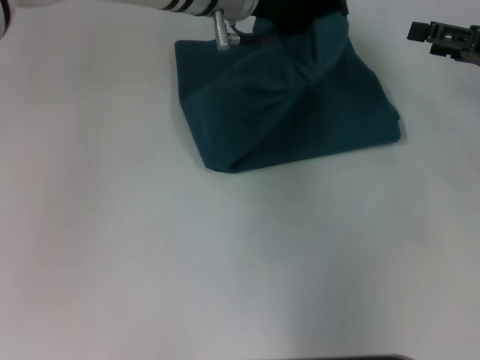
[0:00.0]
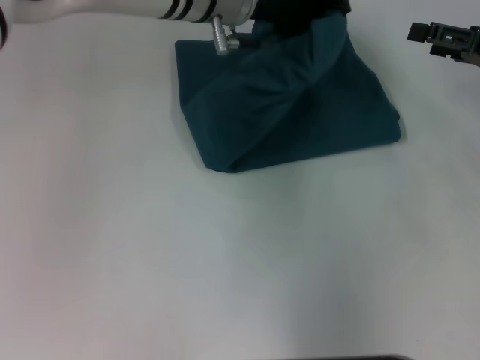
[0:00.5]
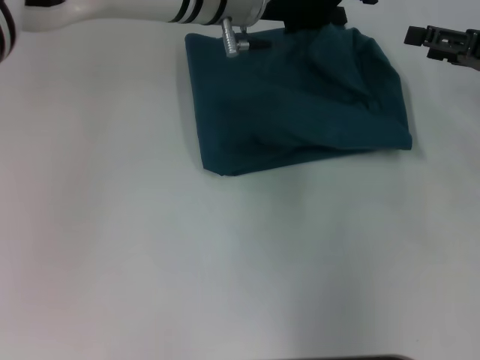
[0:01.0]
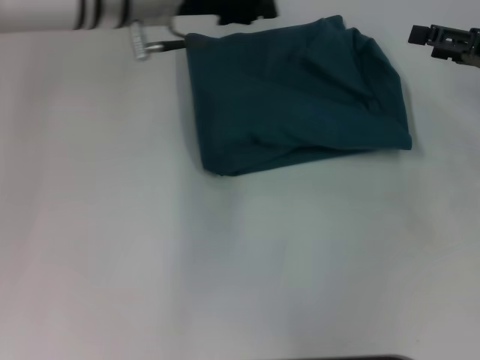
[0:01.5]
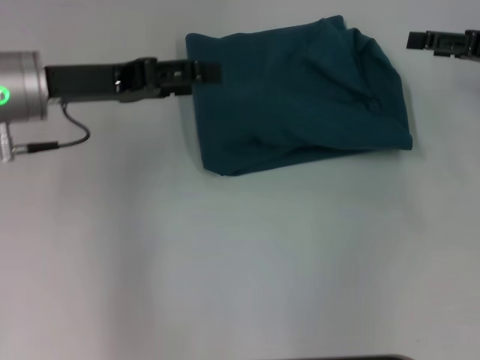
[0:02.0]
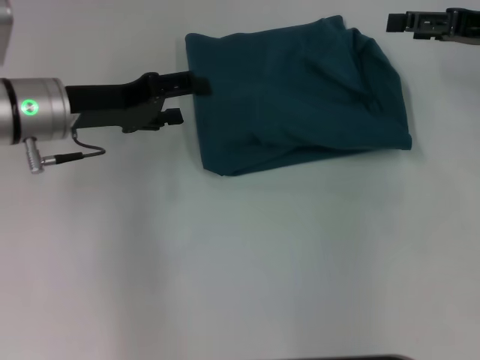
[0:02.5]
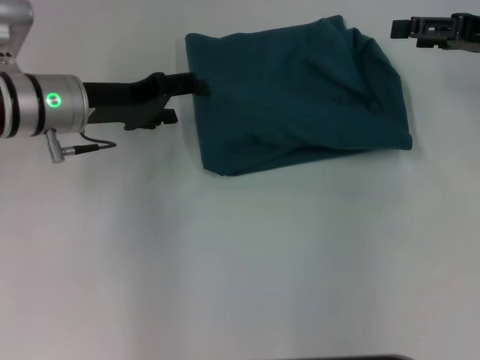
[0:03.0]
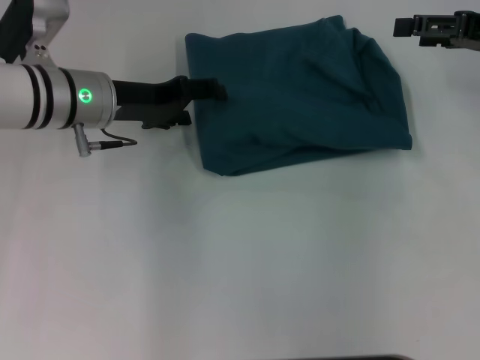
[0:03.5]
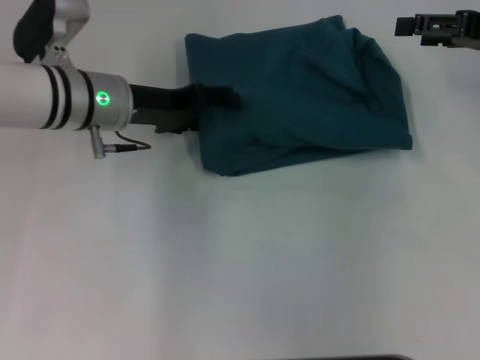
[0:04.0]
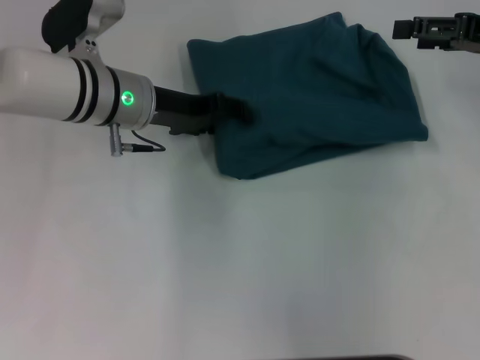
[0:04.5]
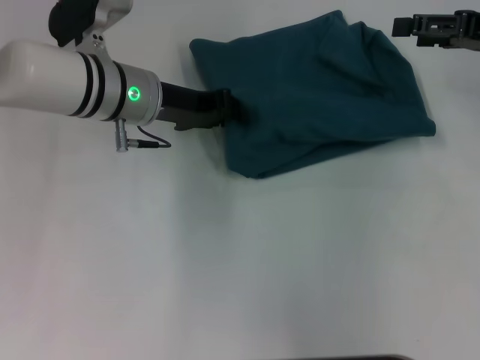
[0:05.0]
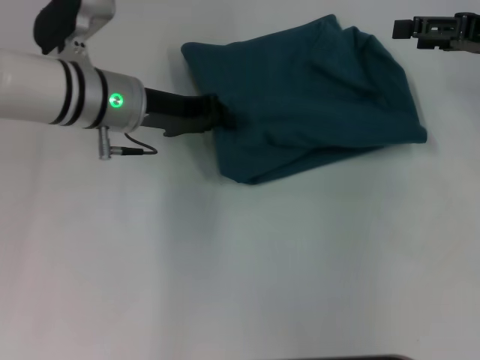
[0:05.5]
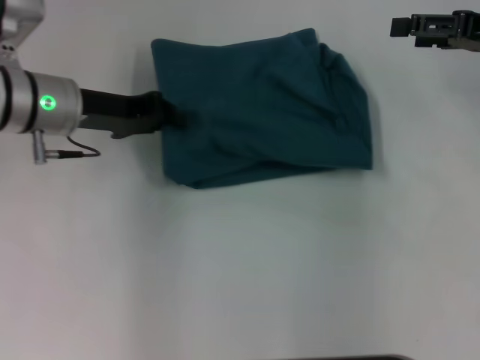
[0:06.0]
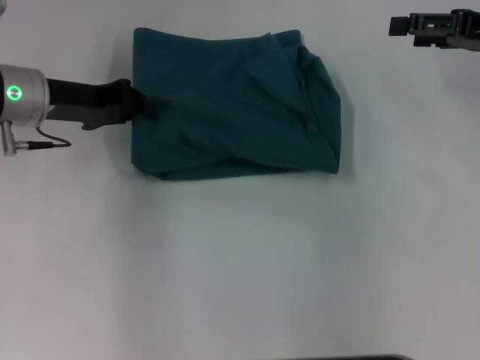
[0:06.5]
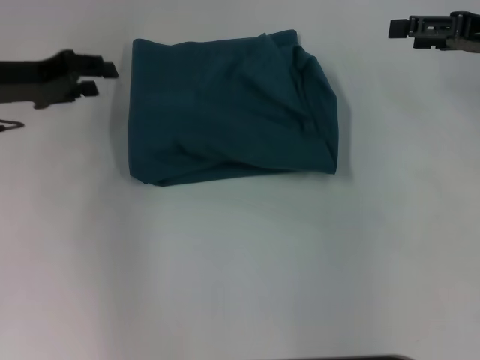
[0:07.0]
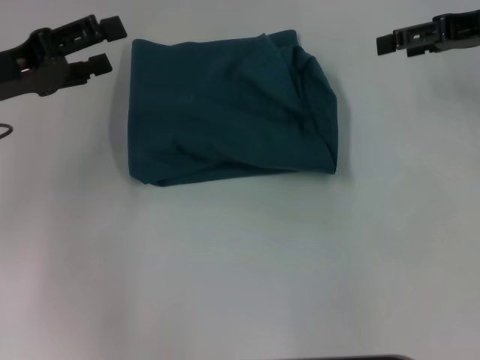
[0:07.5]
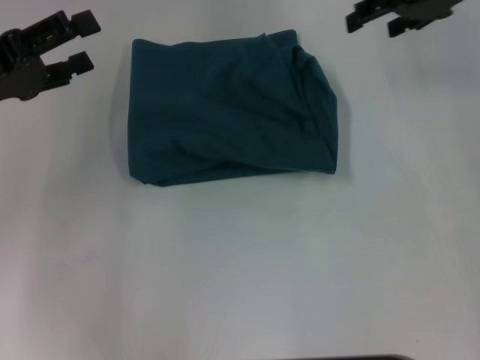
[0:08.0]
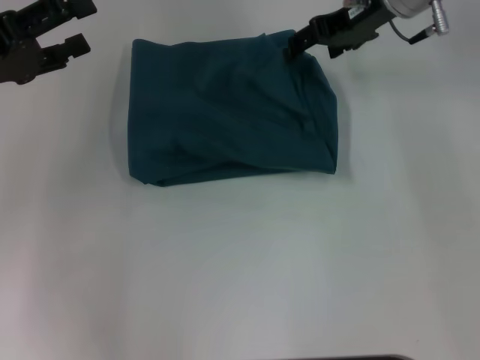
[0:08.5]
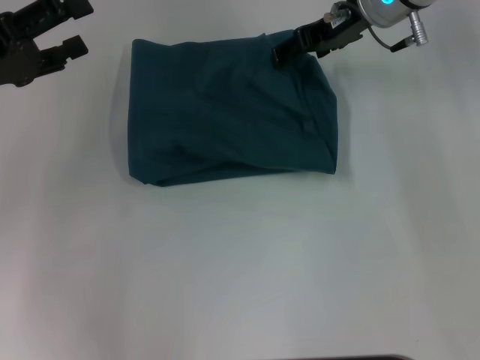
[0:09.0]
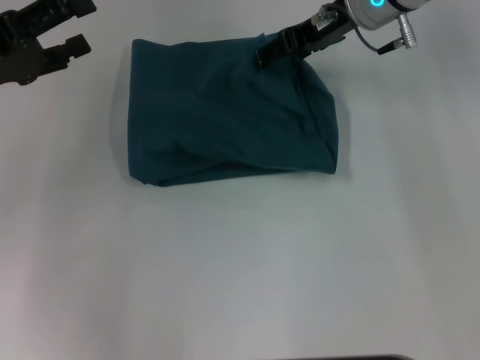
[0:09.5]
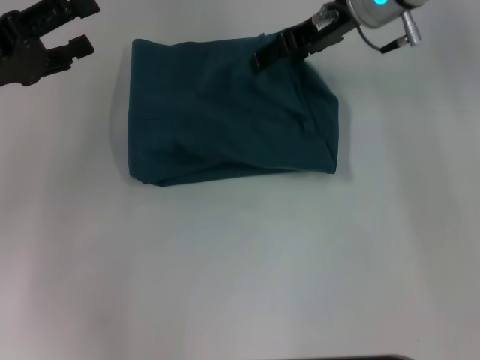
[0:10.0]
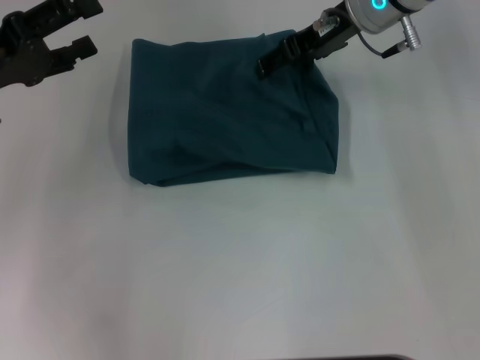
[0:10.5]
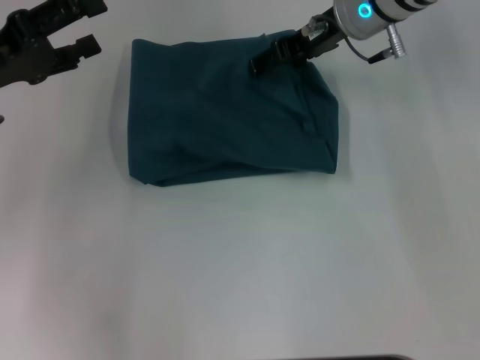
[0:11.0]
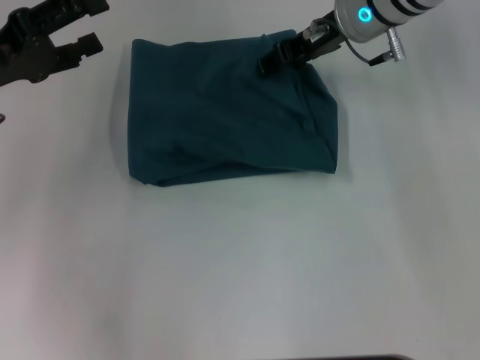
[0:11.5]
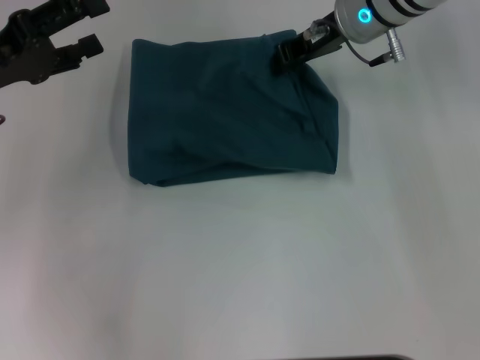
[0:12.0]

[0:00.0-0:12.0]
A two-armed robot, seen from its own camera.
0:00.0 to 0:02.0: The left gripper moves to the left and backward, roughly 20 cm, and opens up.
0:02.0 to 0:04.0: The left gripper heads to the right and downward, covering some 10 cm.
0:04.0 to 0:06.0: The left gripper closes up.
0:06.0 to 0:08.0: The right gripper heads to the left, forward and upward, covering about 10 cm. Meanwhile the left gripper goes about 10 cm to the left and backward, and opens its fingers.
0:08.0 to 0:10.0: The right gripper heads to the left, covering some 10 cm.
0:10.0 to 0:12.0: The right gripper closes.

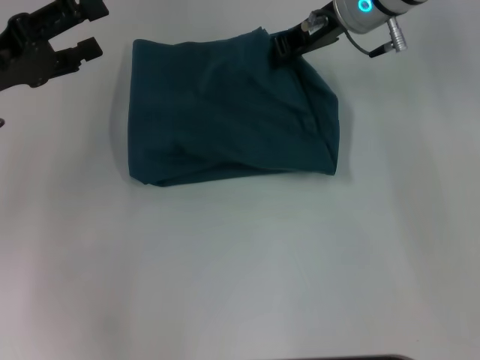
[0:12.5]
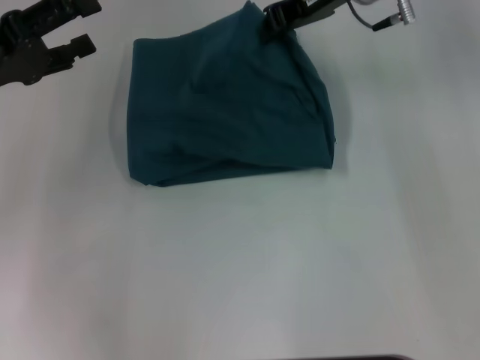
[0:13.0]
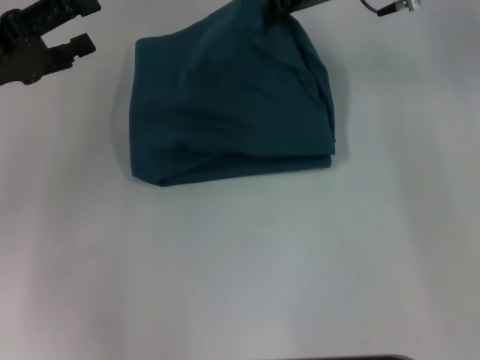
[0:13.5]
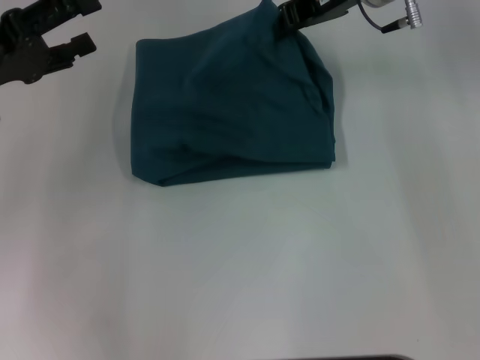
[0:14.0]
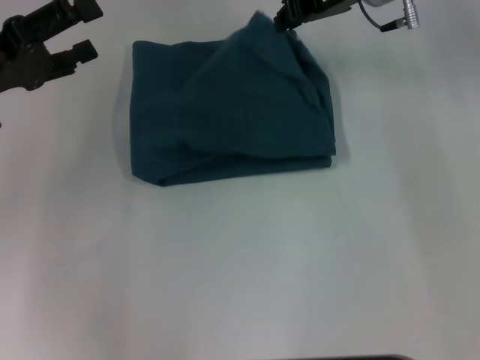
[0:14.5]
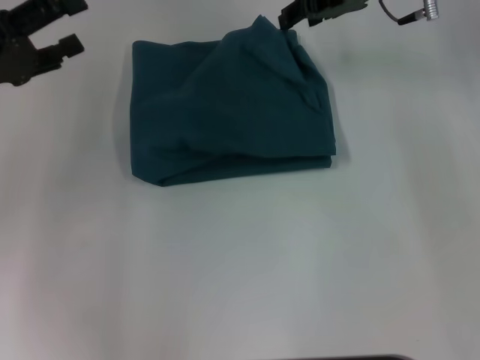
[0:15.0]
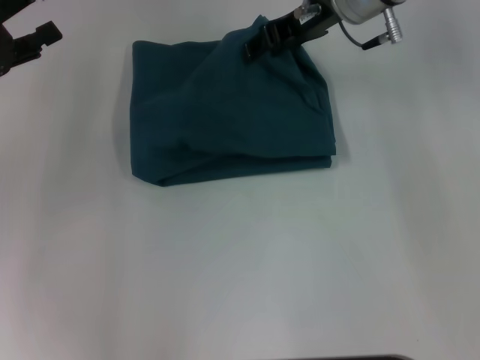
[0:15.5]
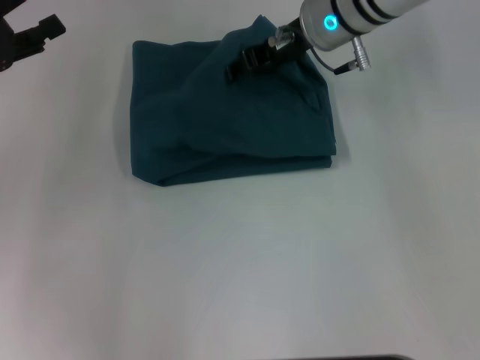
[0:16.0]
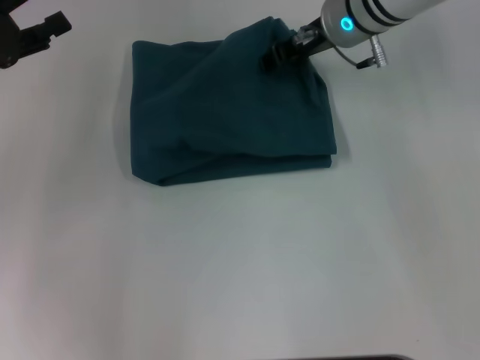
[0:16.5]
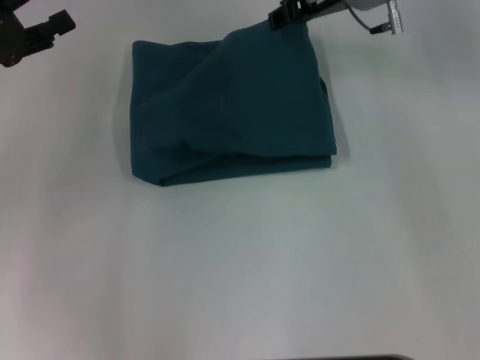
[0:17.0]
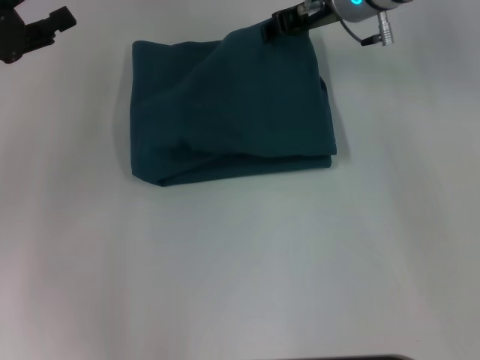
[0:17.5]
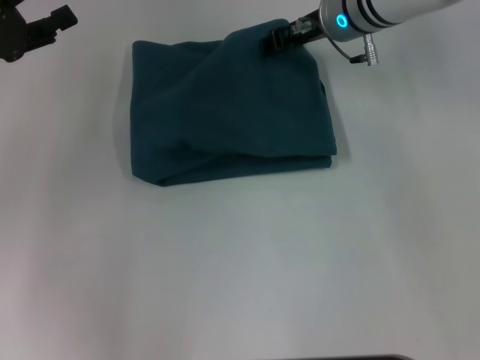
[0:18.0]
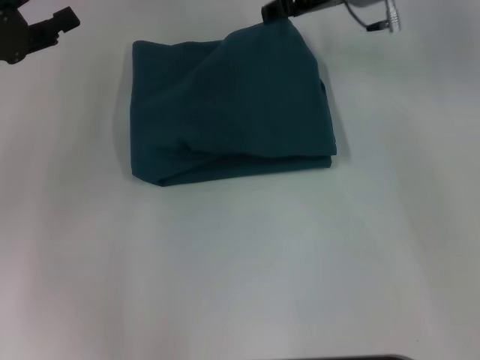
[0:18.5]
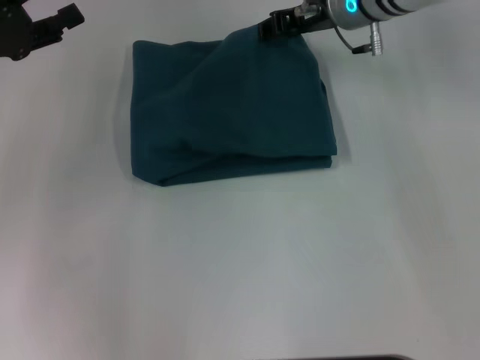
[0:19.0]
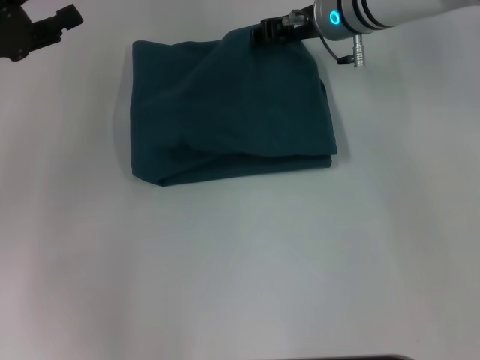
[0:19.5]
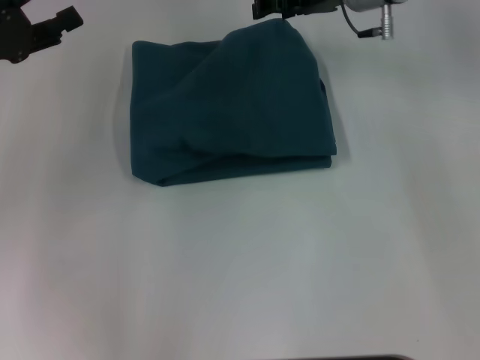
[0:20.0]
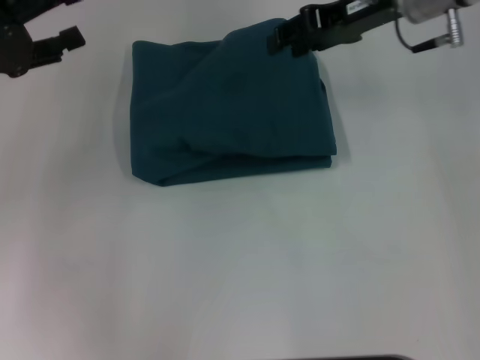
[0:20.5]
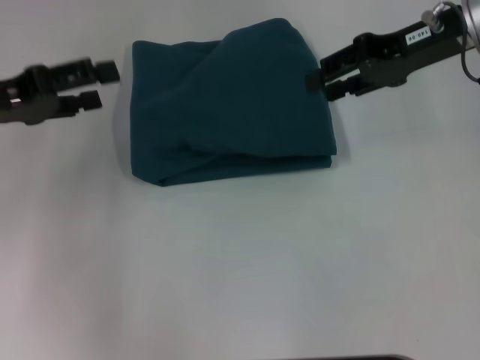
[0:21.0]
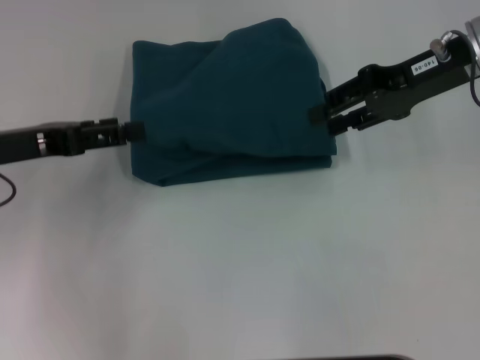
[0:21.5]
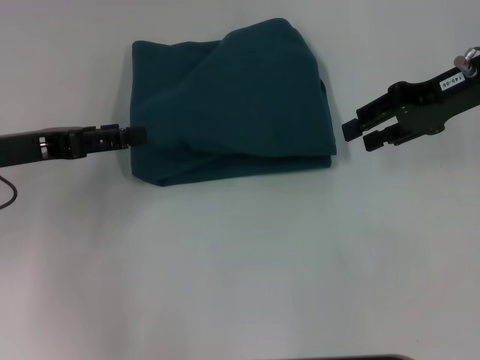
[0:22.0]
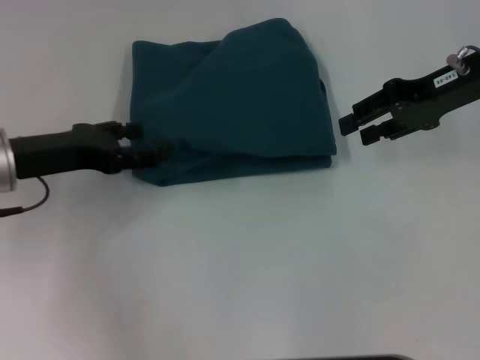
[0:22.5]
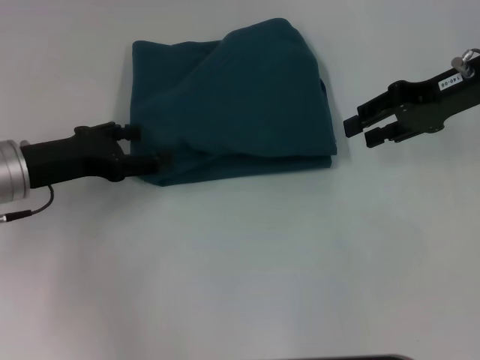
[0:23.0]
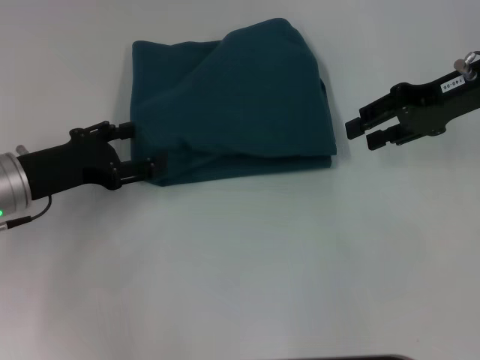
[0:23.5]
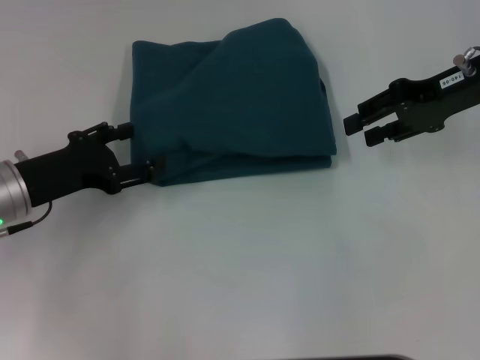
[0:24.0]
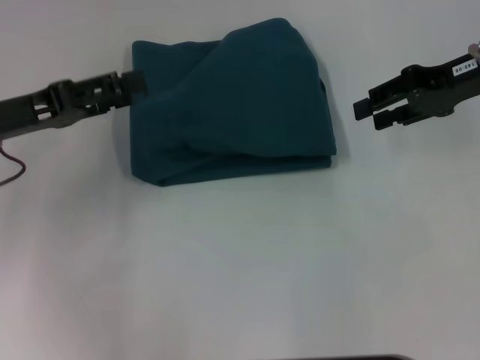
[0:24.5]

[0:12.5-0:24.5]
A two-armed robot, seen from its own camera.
0:12.5 to 0:14.5: There are only small adjustments of the grippers.
0:14.5 to 0:16.5: The right gripper opens.
0:16.5 to 0:18.5: The grippers stay close to where they were, moving slightly.
0:18.5 to 0:20.5: The right gripper moves to the right, about 5 cm.
0:20.5 to 0:22.5: The right gripper goes some 10 cm to the right. The left gripper shifts about 10 cm downward and to the right.

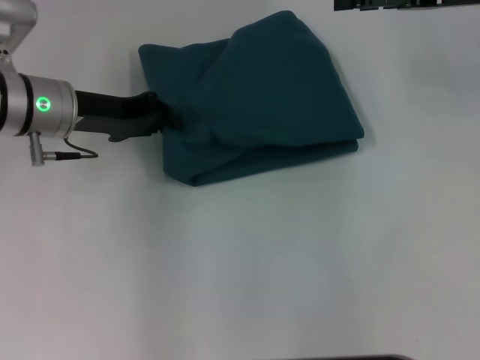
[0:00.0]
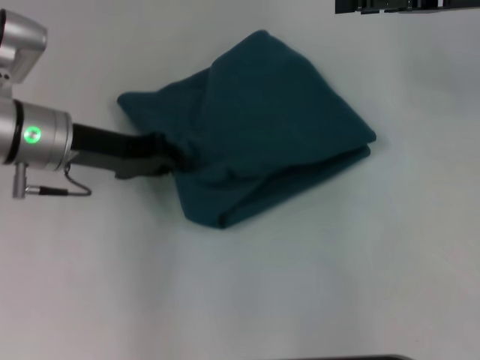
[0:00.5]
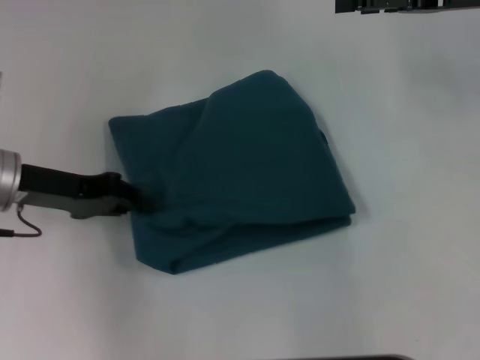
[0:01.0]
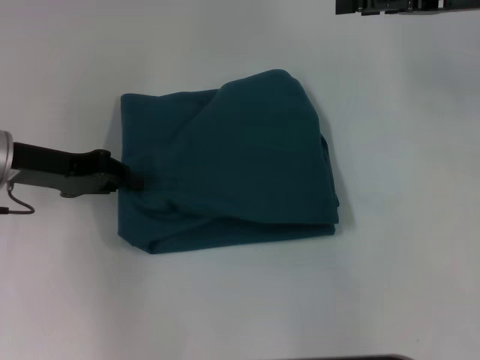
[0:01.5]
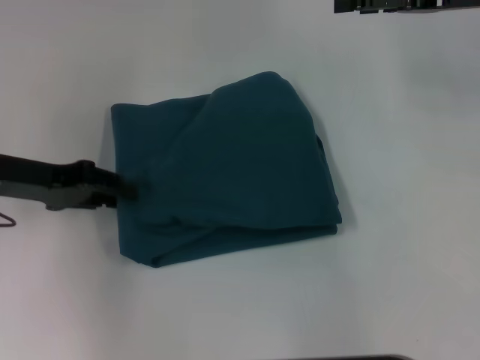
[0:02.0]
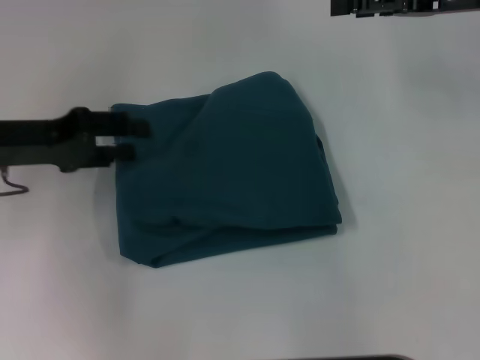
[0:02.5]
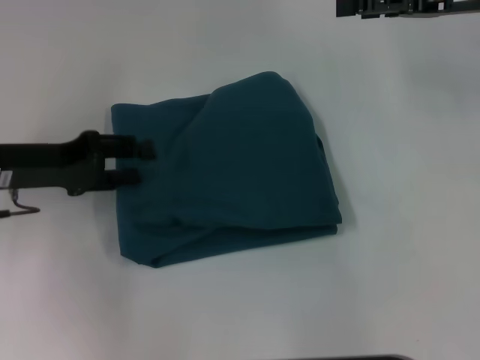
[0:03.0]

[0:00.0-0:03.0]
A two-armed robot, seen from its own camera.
0:00.0 to 0:01.5: The left gripper travels to the left by about 5 cm.
0:01.5 to 0:03.0: The left gripper opens up.
